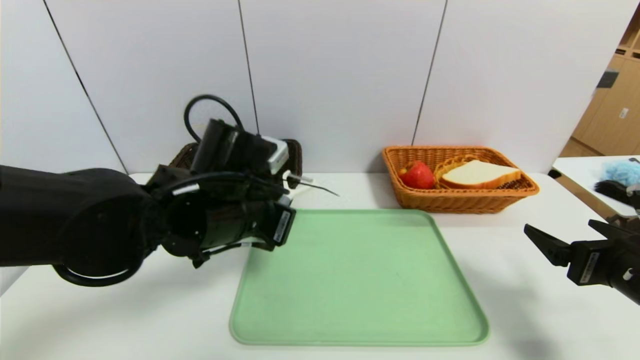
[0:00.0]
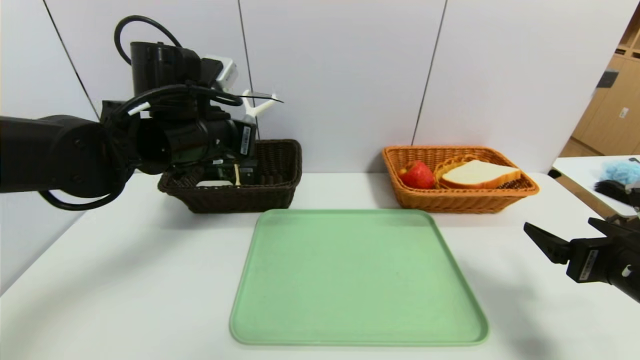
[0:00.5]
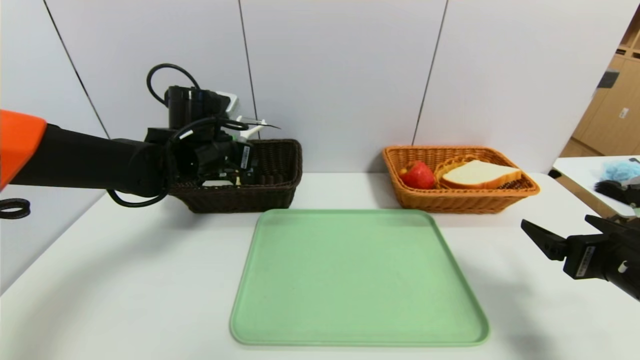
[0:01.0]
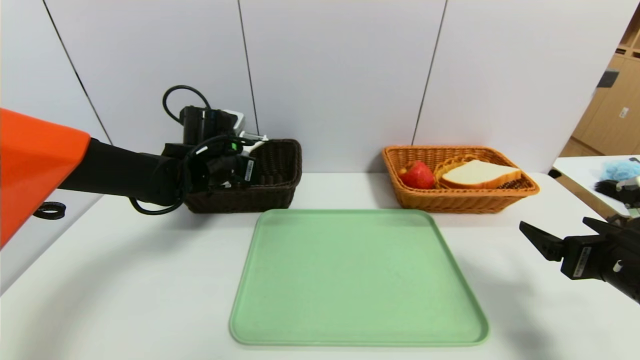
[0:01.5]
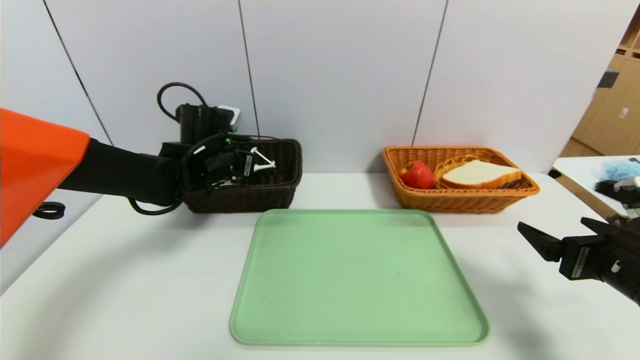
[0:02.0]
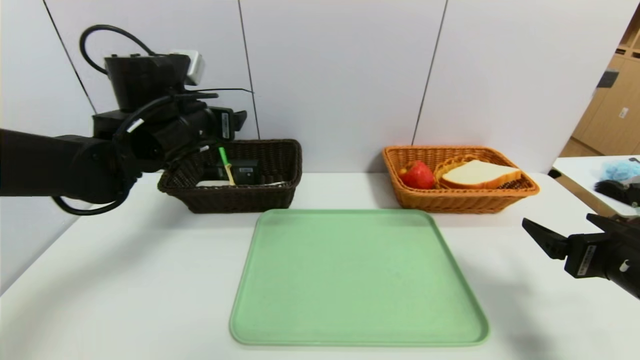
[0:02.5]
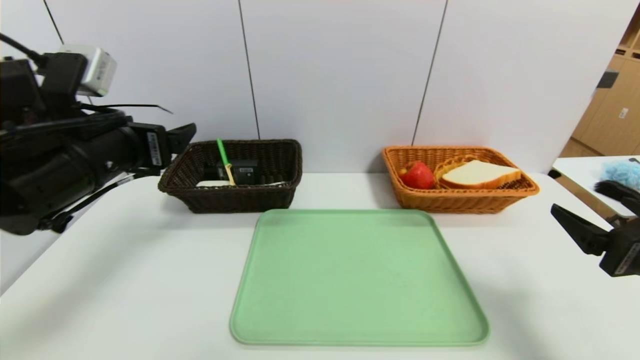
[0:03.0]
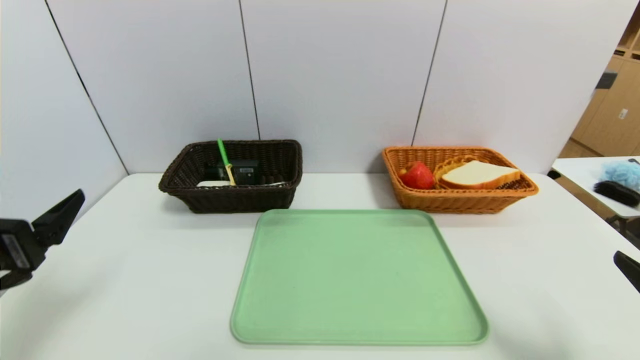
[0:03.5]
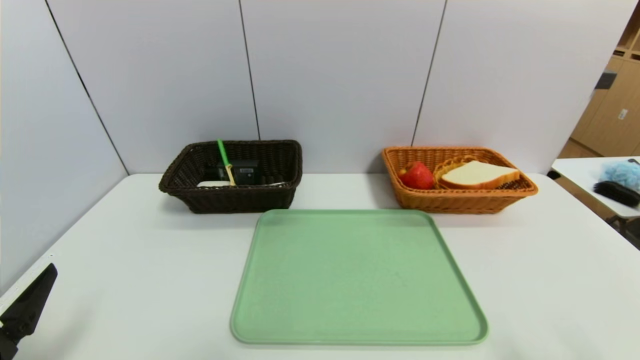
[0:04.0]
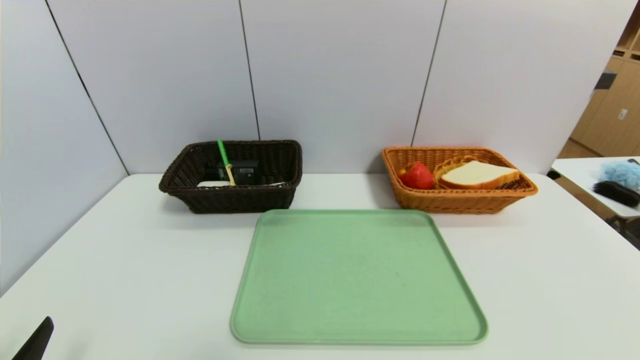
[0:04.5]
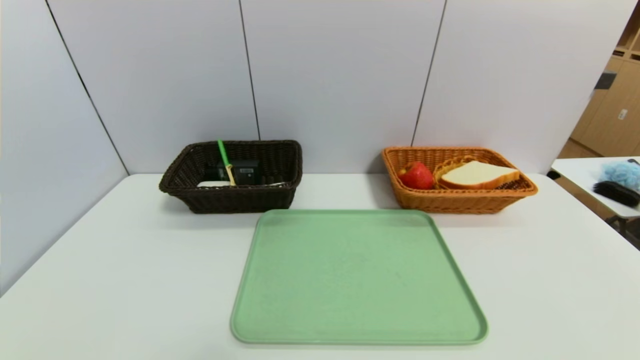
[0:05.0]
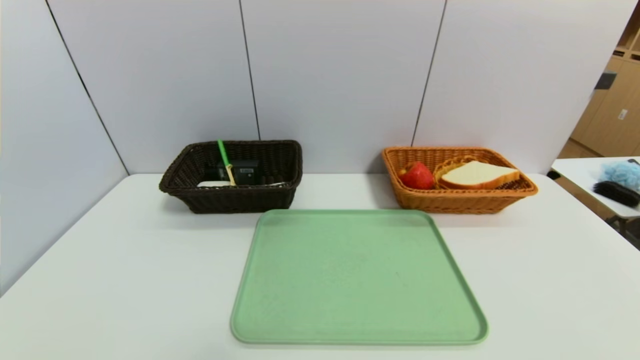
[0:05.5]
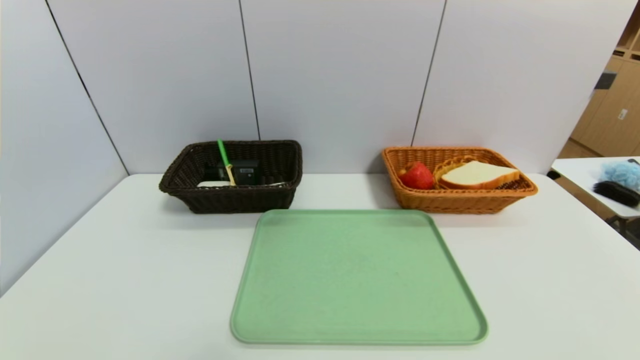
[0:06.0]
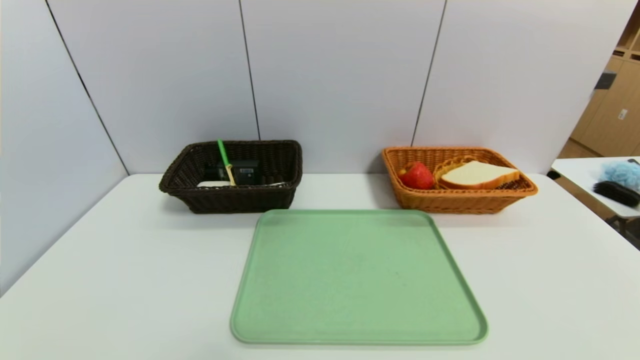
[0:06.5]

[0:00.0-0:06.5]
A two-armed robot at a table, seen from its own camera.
Task of the whole recording: place the food in the right basket with the right gripper, and place the non food items in the left basket with the left gripper.
Step, 0:00.0 to 0:02.0: Grasp the peeler and put it in the left basket.
0:00.0 to 0:02.0: The left gripper travels forward and to the left by roughly 15 cm, and opens.
0:02.0 to 0:04.5: The left gripper moves backward, about 40 cm. The right gripper heads backward, covering some 20 cm.
